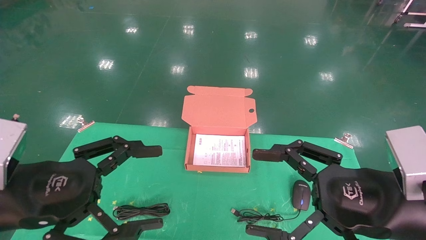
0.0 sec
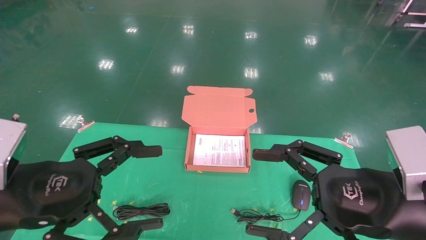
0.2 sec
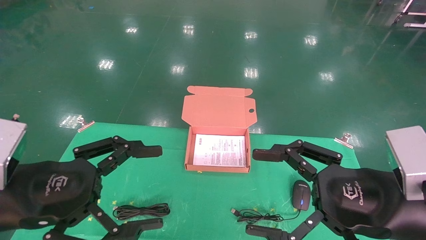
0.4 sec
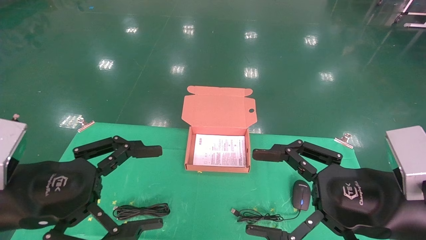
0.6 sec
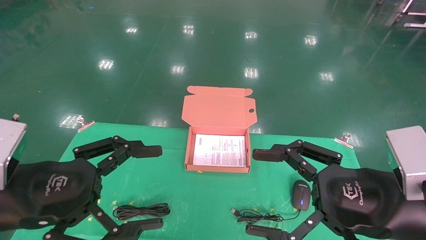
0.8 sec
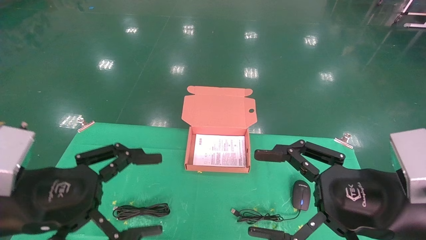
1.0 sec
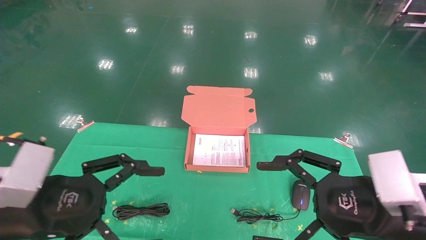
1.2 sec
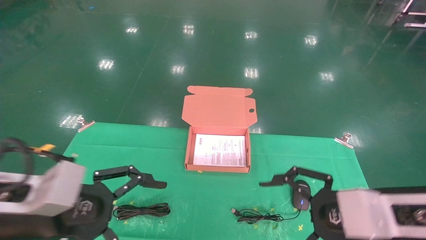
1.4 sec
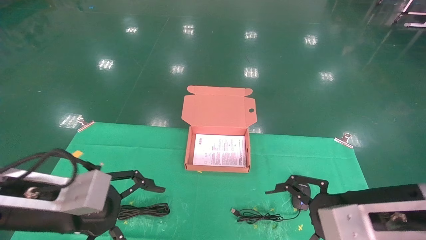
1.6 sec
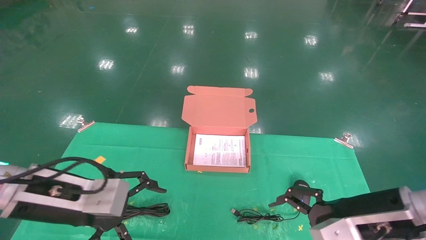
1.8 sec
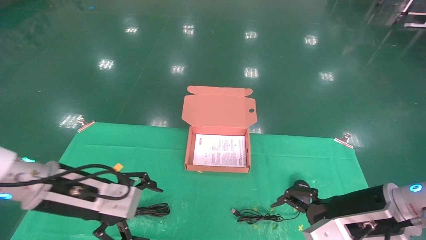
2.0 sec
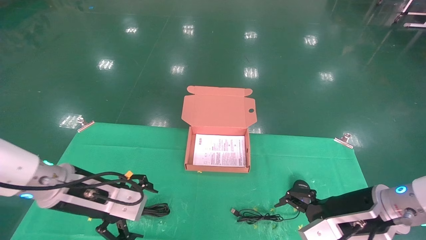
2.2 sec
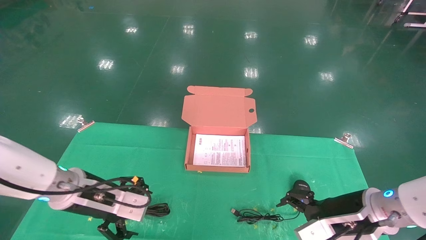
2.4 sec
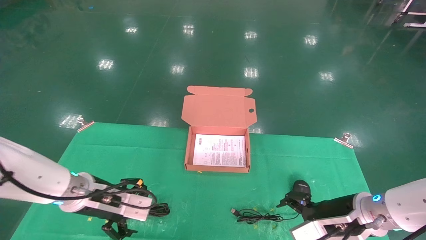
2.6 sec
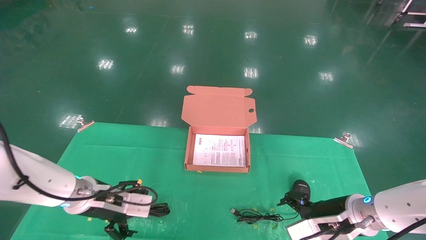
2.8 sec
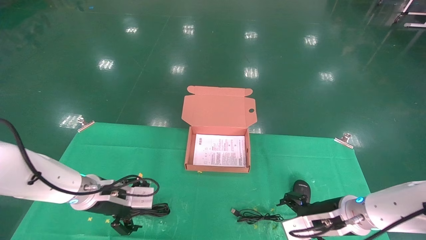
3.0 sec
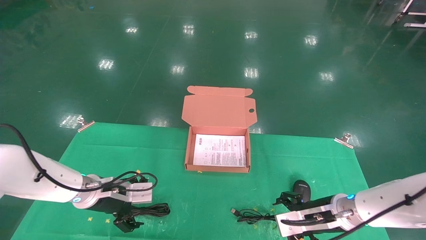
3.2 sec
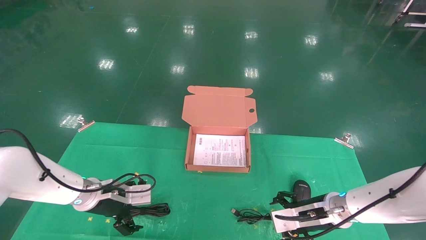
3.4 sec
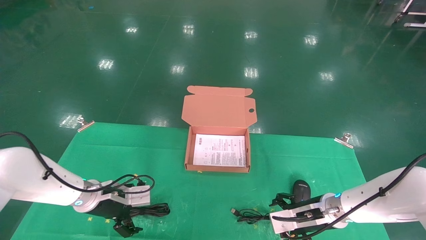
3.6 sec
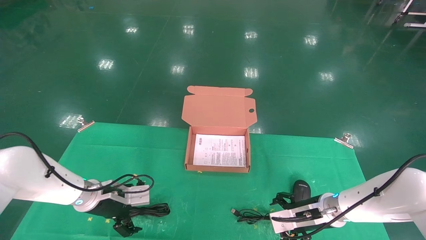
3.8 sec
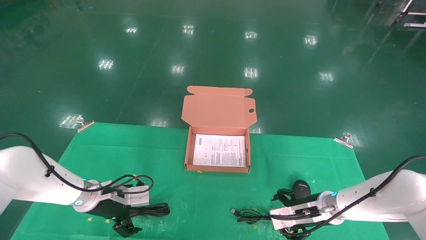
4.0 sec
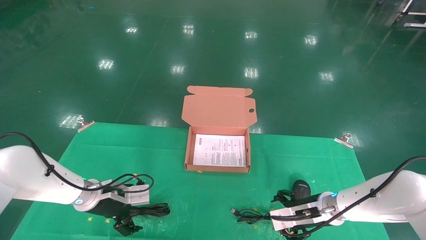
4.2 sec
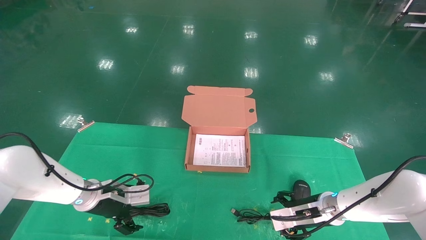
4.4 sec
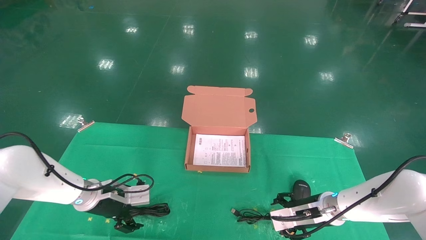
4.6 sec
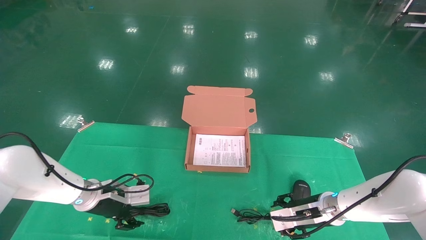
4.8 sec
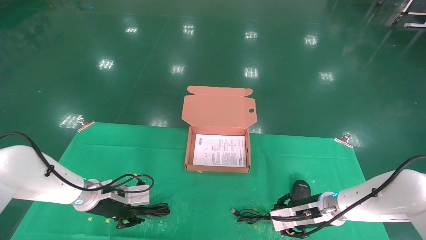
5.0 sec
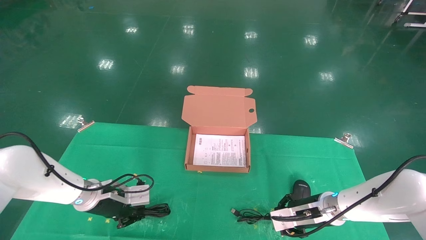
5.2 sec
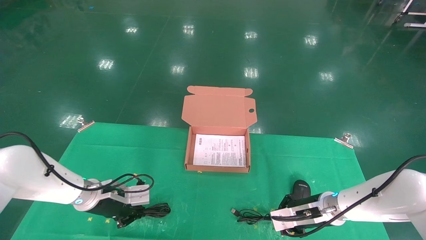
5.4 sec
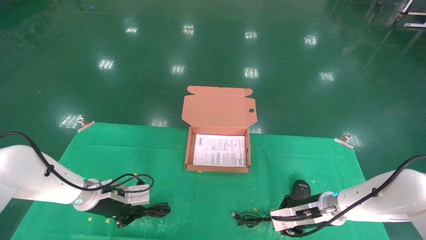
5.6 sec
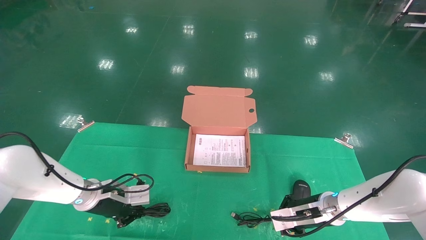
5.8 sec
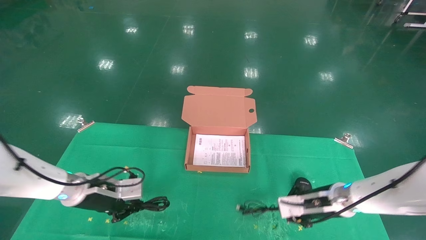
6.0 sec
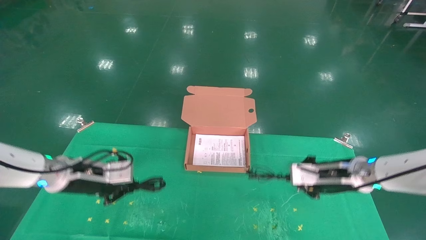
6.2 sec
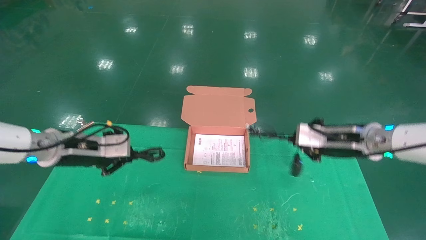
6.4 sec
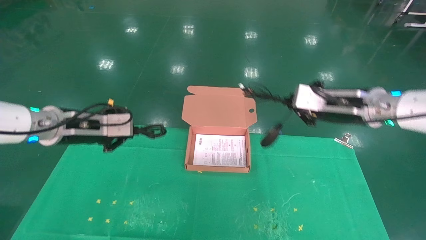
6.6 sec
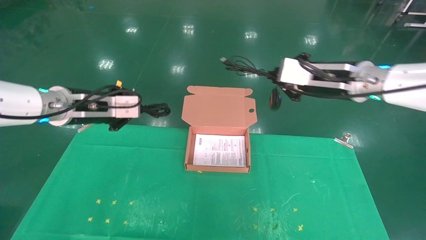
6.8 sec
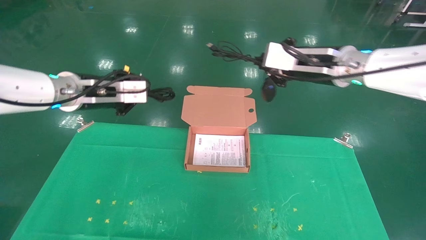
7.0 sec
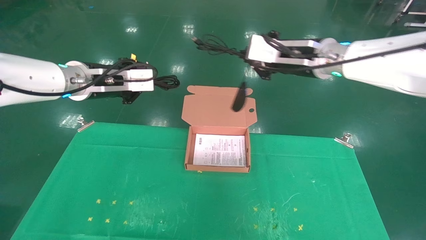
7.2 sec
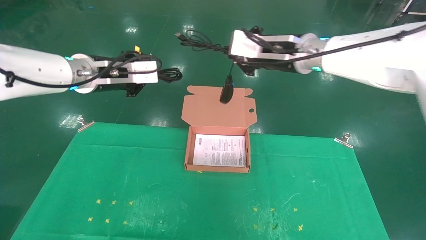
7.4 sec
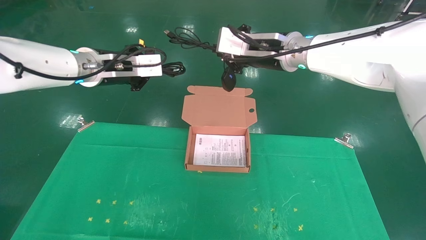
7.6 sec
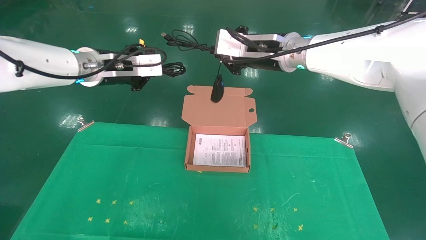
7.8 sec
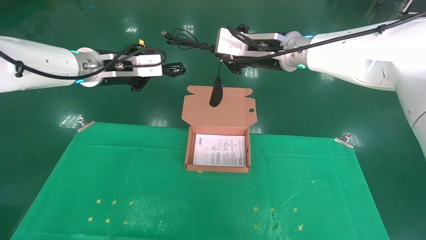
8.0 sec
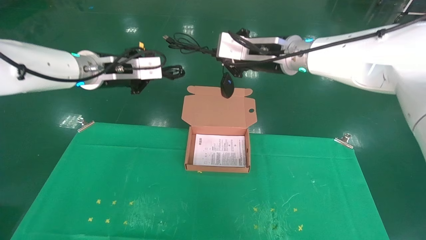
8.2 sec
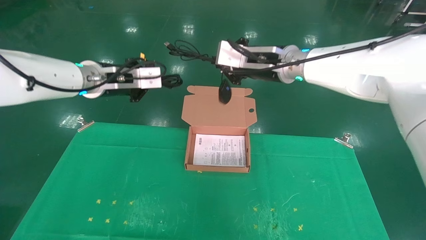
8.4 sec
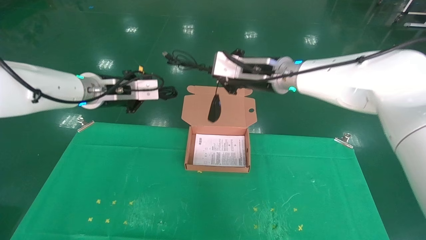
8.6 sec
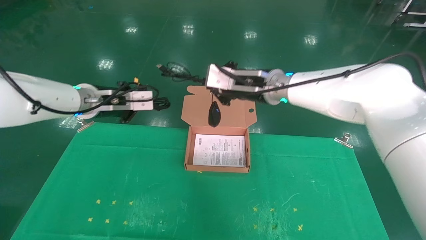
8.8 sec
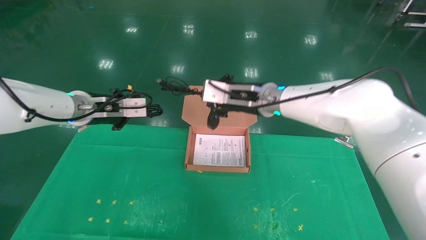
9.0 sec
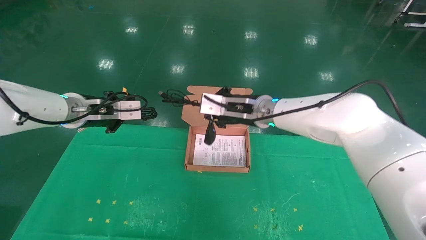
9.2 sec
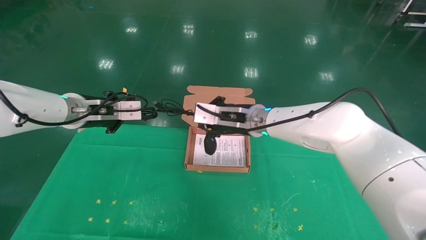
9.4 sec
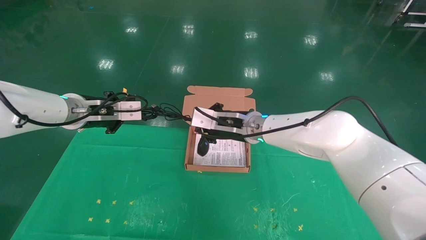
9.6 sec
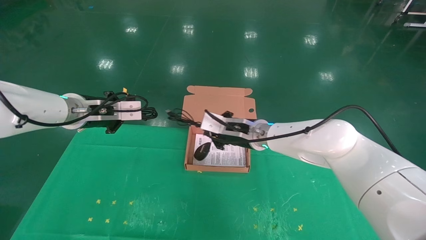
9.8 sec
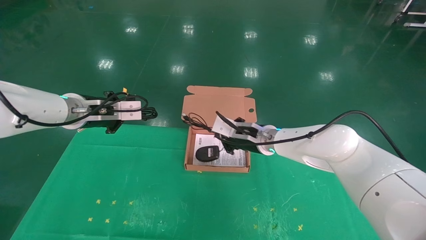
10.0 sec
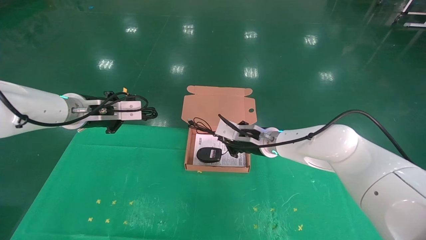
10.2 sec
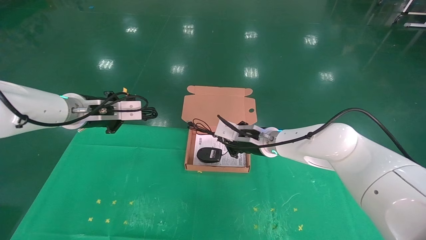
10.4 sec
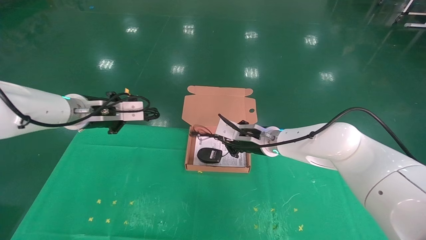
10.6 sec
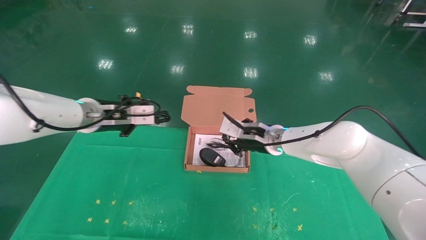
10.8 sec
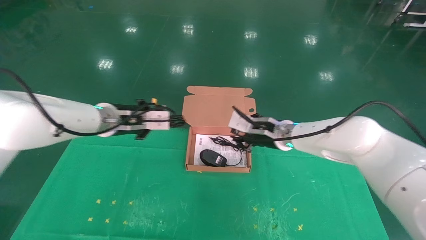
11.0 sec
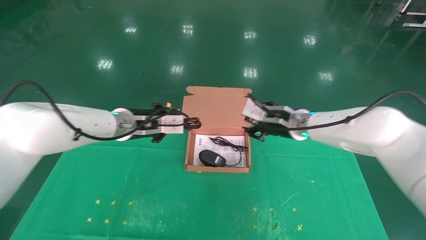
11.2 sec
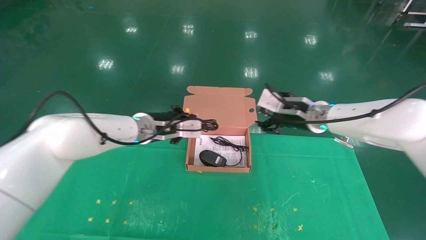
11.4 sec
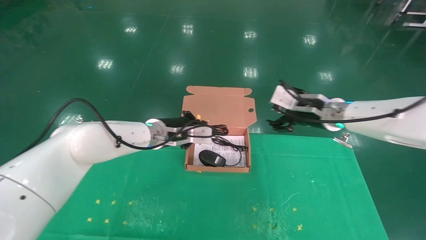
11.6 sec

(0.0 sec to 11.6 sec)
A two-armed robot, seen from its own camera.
Task of the whole recording: grasp data cable left put into box grasp mouse right put into box.
Step, 1.4 sec - 5.6 sec: Grab and pick up both the mouse and power cord from the accessory packaging area at the same time.
1.4 sec - 2.8 sec: Both grippers move forward and downward, approximately 15 cm.
2.8 sec - 4.4 sec: The grippers both shift forward and downward by some 10 cm.
4.4 sec - 5.8 sec: The left gripper closes. The right gripper closes up.
5.8 sec - 7.2 sec: The grippers both shift upward by some 30 cm.
7.2 sec - 8.8 sec: The left gripper ends up some 5 cm from where it was. The right gripper heads to the left and downward, covering some 10 cm.
8.8 sec - 10.2 sec: The right gripper heads downward, covering about 15 cm.
10.2 sec - 11.6 sec: The left gripper goes some 15 cm to the right and downward. Meanwhile the right gripper moves to the right and upward, approximately 15 cm, and opens.

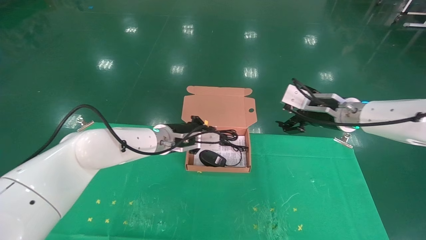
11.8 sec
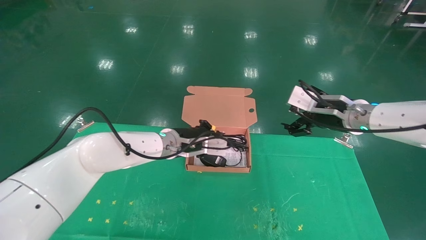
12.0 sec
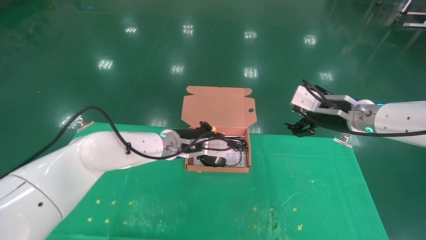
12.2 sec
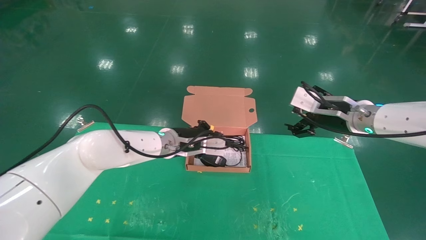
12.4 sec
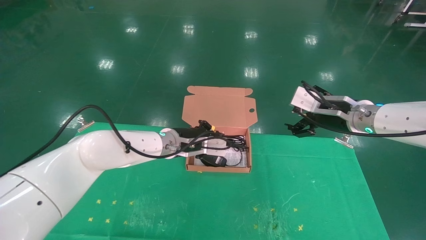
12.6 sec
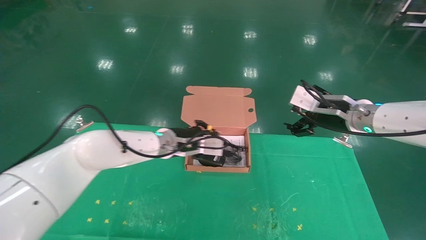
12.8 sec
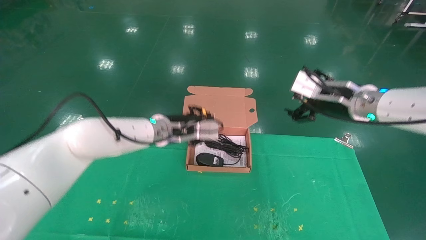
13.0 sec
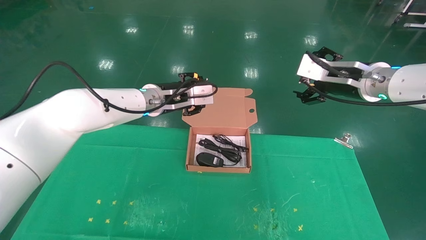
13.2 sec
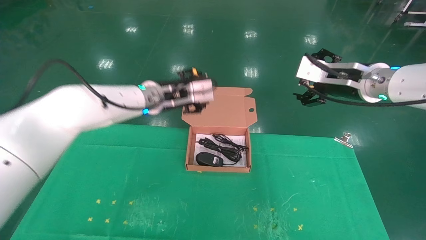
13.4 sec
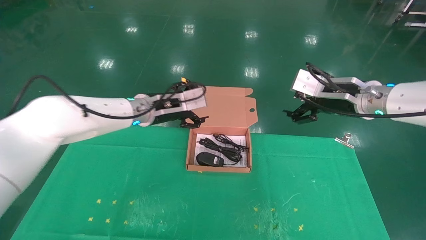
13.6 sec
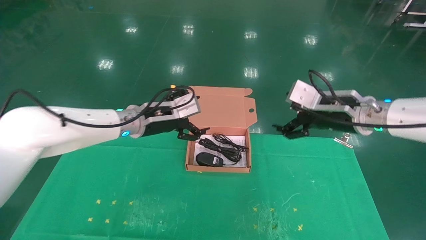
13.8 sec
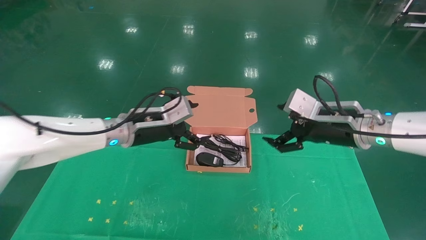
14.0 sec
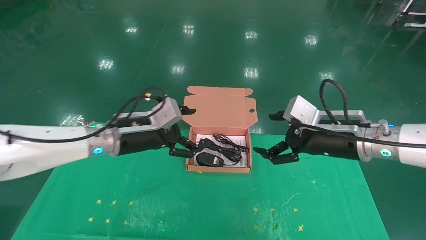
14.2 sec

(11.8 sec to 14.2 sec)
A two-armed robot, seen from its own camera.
Task of the whole recording: grasp data cable left put into box grasp mouse right put into box.
11.8 sec - 13.0 sec: The grippers move only a little.
13.0 sec - 14.2 sec: The right gripper moves backward, roughly 5 cm. Meanwhile the left gripper moves to the left and backward, approximately 10 cm, and opens its fingers.

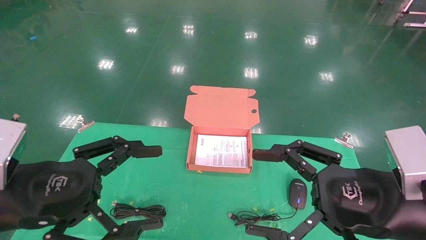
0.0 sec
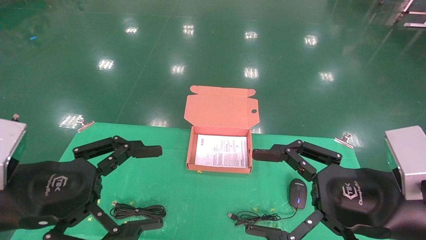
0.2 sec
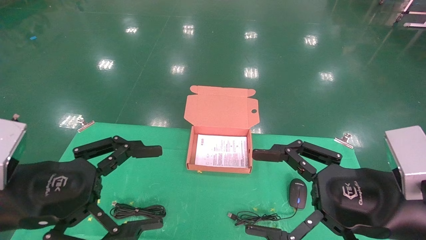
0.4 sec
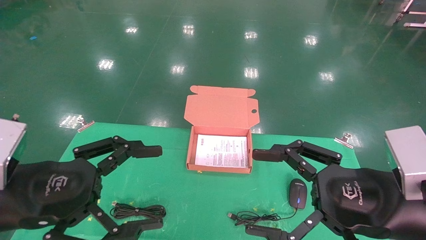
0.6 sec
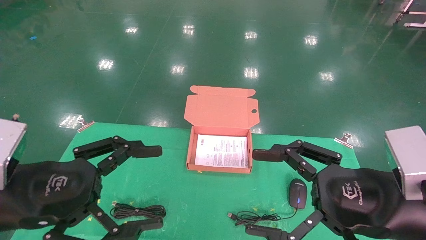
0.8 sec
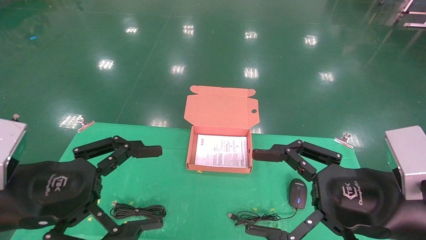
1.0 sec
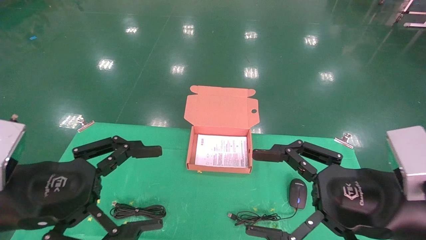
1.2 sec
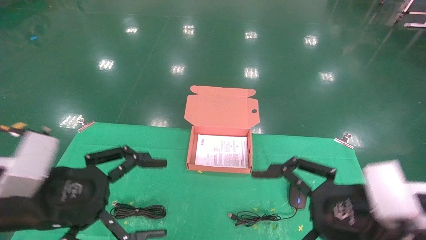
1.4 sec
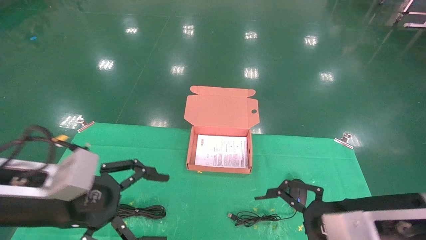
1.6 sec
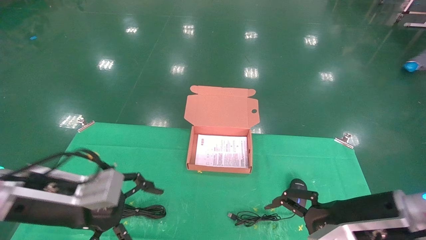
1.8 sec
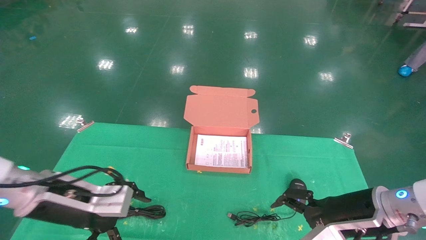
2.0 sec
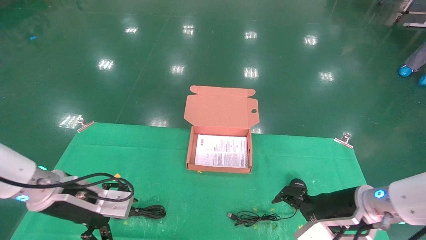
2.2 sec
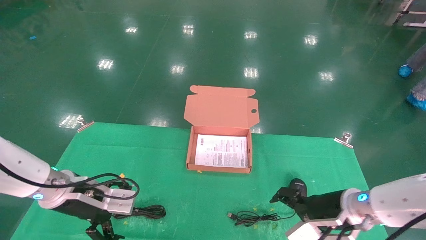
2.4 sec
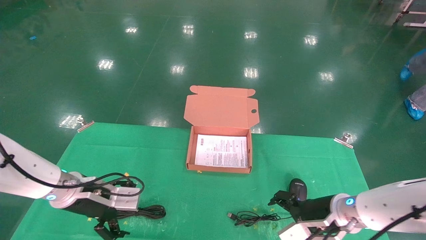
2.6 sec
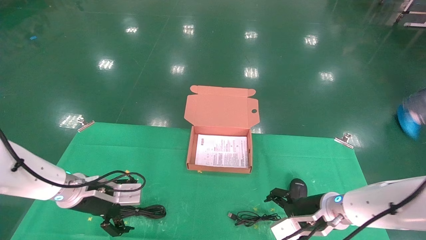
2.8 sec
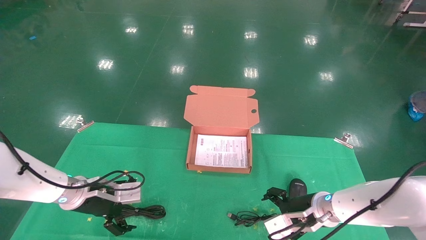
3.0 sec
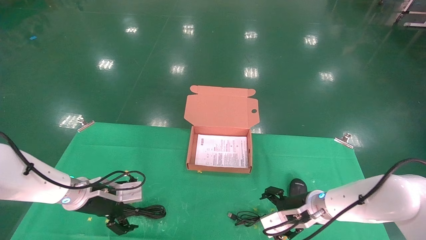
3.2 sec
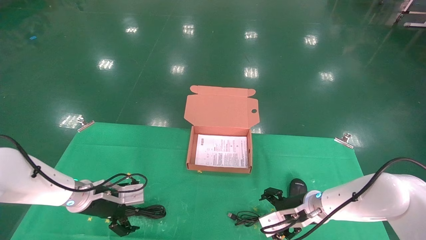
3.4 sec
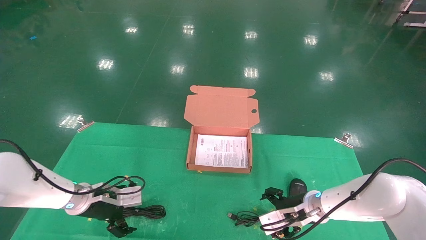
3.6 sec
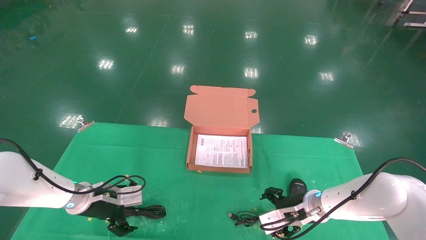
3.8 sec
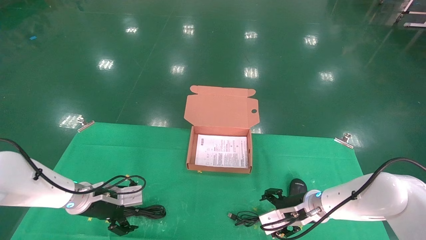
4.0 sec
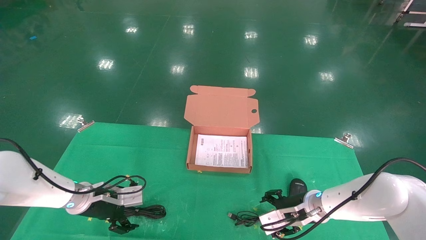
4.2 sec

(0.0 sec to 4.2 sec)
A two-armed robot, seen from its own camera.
Task of the whole recording: grasp data cable left put into box grasp mouse right put into box.
0.0 sec - 1.4 sec: The grippers stay close to where they were, moving slightly.
1.4 sec - 2.8 sec: The grippers both shift forward and downward by about 25 cm.
2.8 sec - 4.2 sec: The left gripper changes place by approximately 5 cm.
